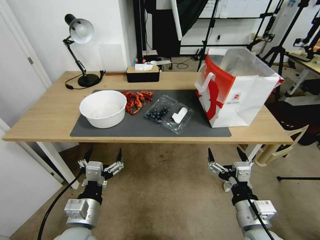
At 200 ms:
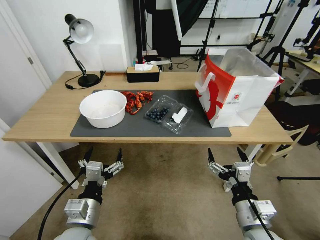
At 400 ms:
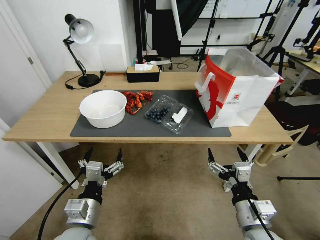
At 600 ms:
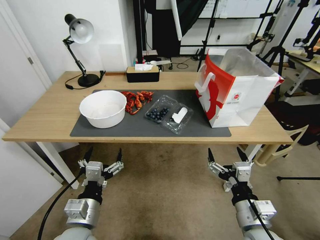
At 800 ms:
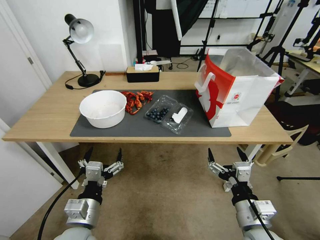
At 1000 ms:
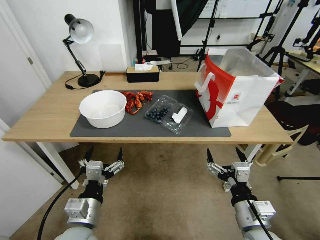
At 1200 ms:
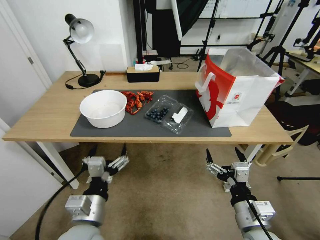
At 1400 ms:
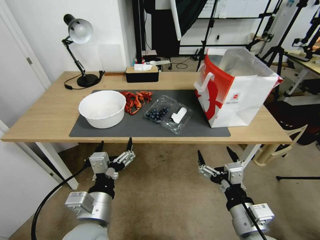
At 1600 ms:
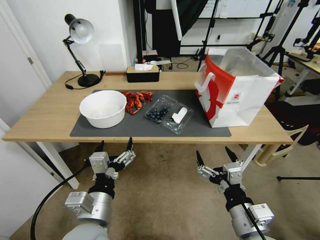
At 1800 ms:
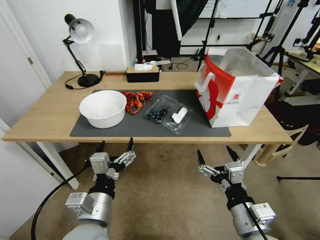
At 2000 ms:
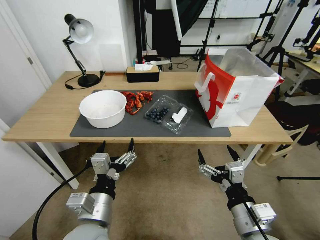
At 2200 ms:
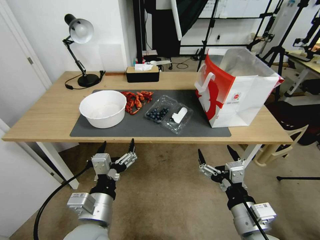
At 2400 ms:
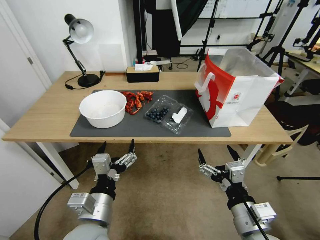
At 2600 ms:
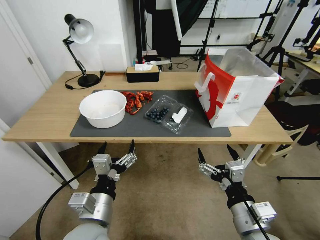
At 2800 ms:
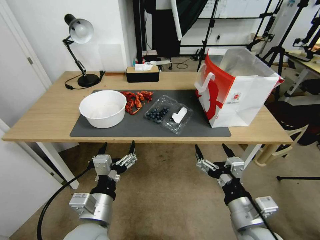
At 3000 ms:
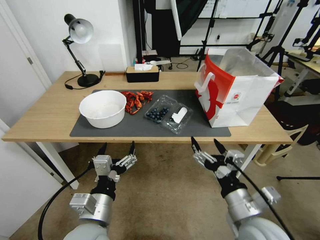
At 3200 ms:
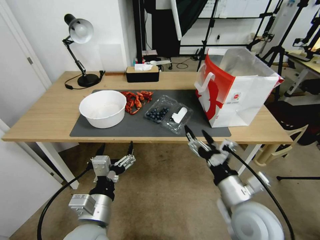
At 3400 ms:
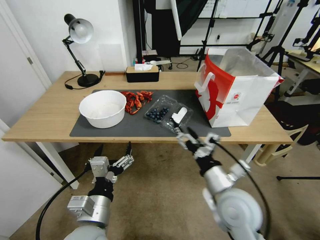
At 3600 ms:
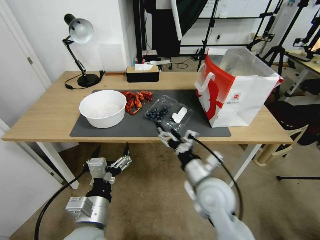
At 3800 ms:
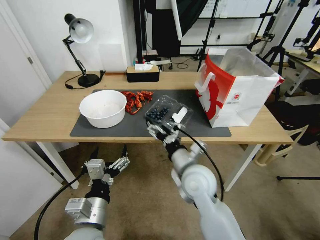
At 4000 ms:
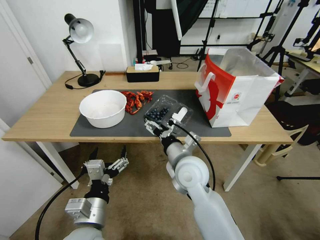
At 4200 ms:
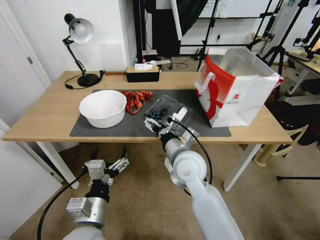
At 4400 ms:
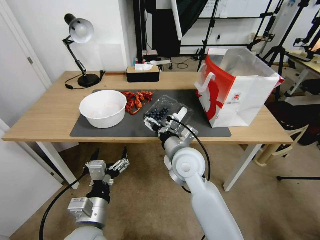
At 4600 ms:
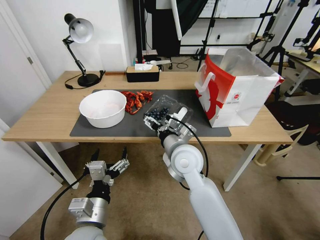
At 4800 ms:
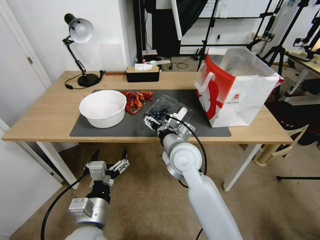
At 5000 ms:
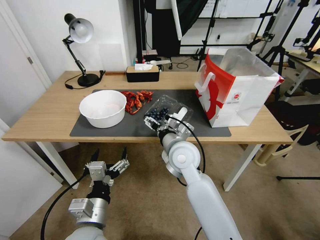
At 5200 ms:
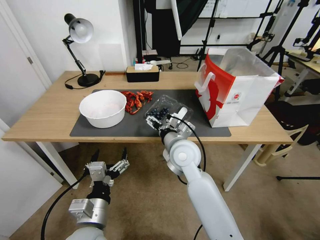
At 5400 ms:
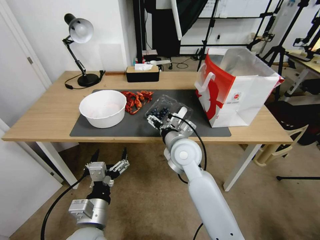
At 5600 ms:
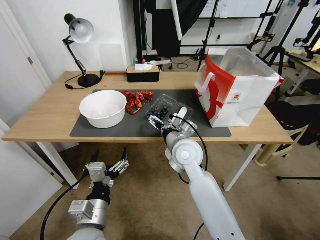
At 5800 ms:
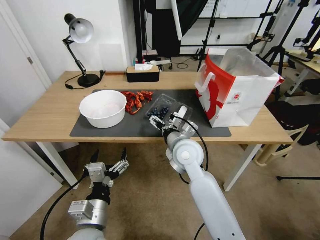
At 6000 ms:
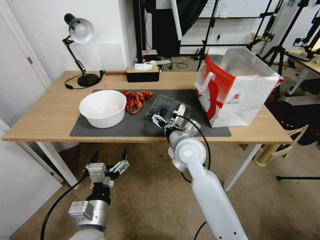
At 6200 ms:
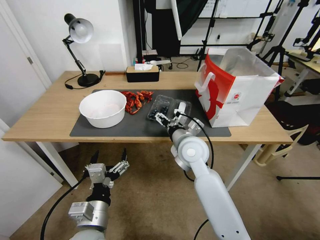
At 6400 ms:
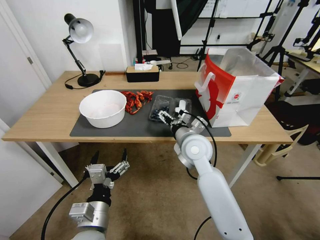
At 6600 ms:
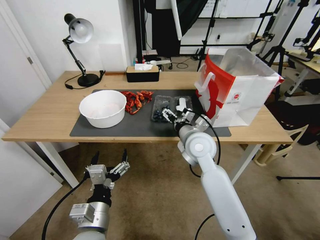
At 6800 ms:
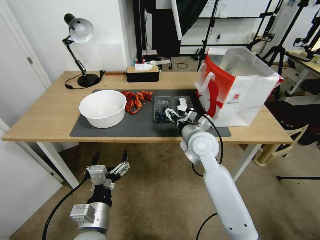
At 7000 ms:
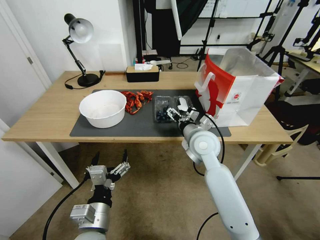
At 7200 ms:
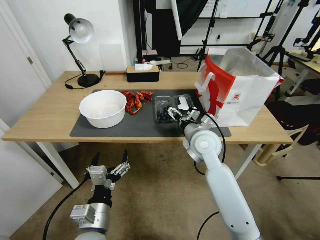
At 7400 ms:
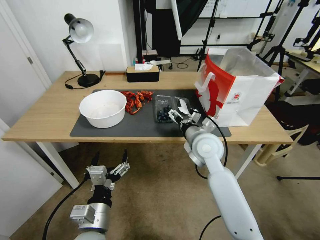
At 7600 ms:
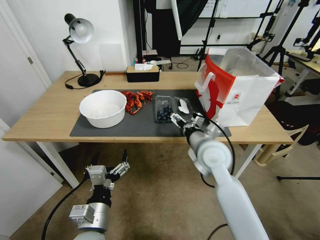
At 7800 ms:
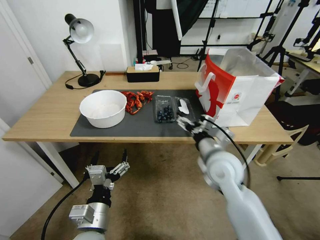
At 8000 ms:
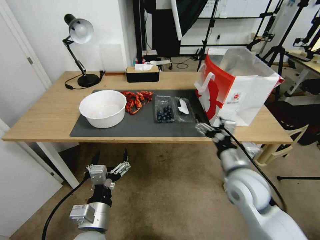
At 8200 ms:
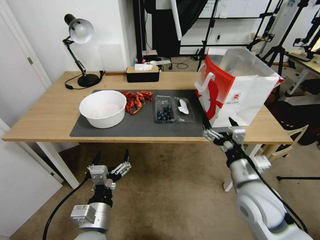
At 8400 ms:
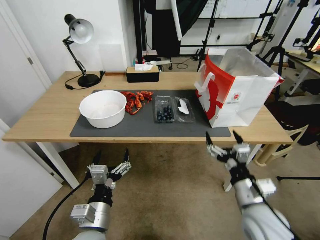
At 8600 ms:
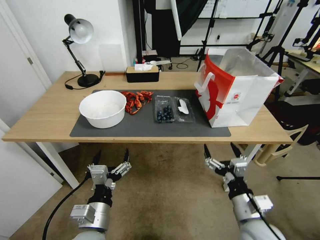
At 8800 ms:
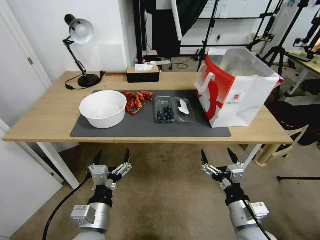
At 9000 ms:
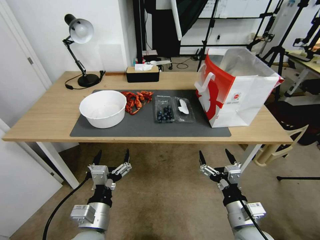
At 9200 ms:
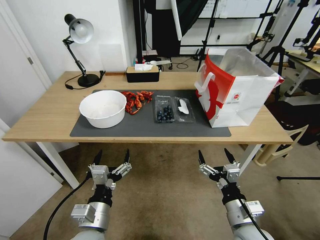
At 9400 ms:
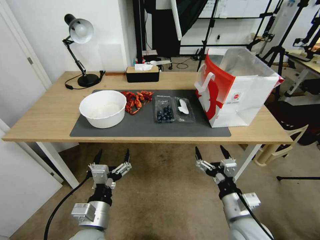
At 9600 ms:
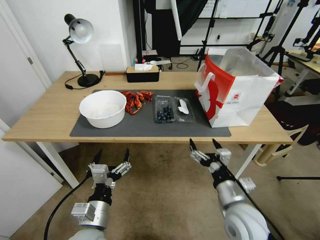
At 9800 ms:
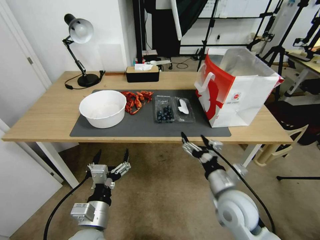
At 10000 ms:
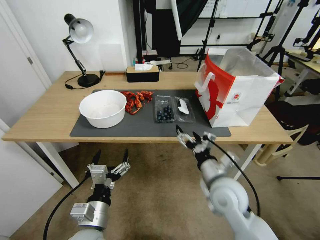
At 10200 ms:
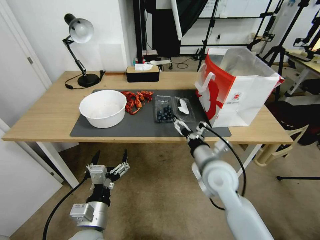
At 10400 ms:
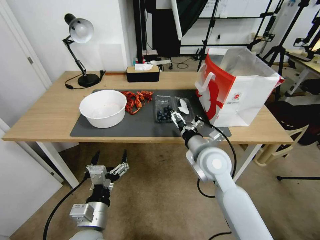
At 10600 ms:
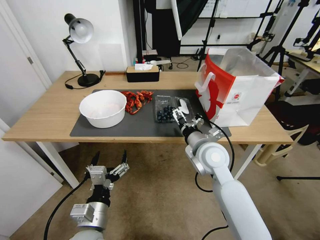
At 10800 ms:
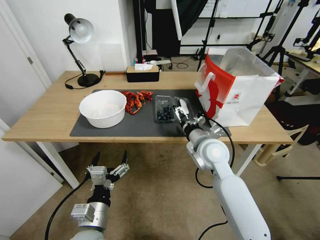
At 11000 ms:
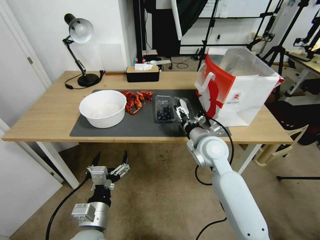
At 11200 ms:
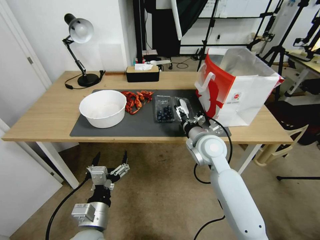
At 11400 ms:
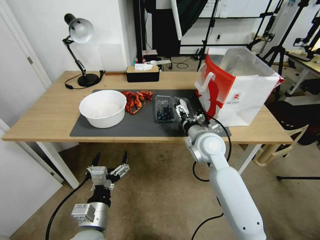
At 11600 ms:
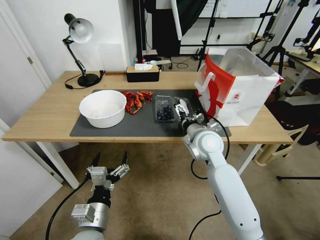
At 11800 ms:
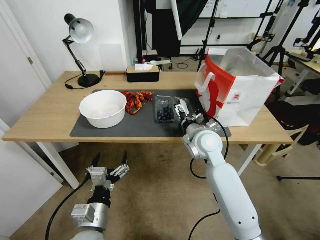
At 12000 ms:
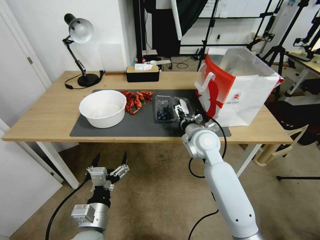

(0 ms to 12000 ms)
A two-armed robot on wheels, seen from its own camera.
Task of the whole recording: Close the takeout container lid, then place the container into the takeout bag.
3000 ms - 4400 ms: The right gripper moves forward and to the left, roughly 20 cm.
4400 ms - 6000 ms: The grippers move only a little.
6000 ms - 7600 ms: The right gripper shifts some 5 cm to the right.
7600 ms - 9000 ms: The right gripper goes approximately 25 cm backward, downward and to the right.
9000 ms - 10400 ms: The right gripper shifts approximately 20 cm forward, upward and to the left.
10400 ms - 12000 ms: The right gripper shifts roughly 5 cm forward.

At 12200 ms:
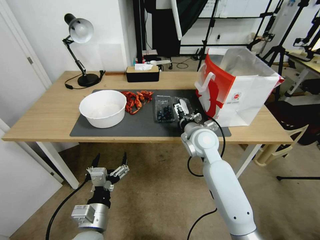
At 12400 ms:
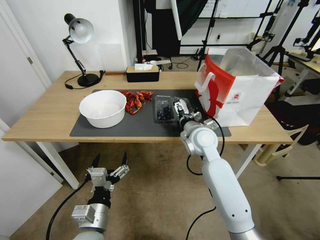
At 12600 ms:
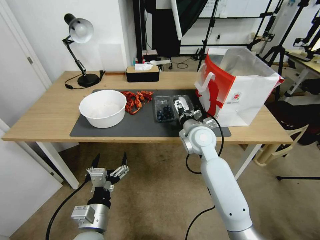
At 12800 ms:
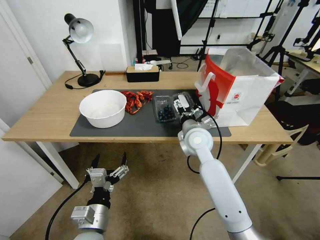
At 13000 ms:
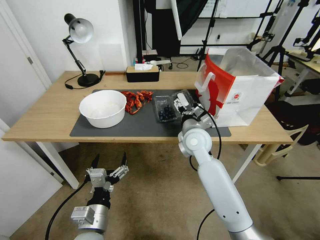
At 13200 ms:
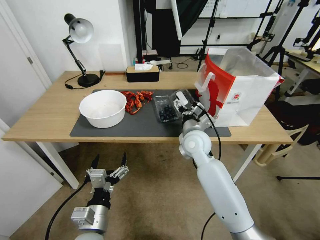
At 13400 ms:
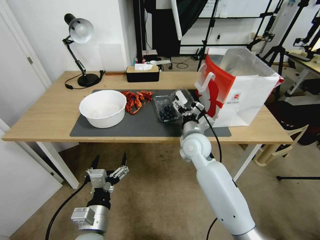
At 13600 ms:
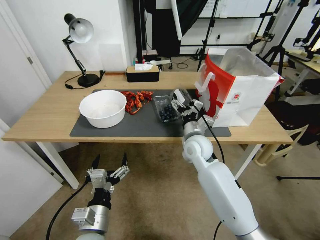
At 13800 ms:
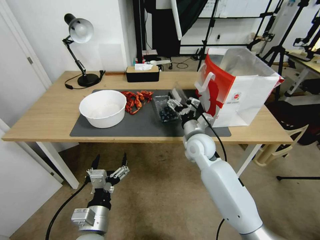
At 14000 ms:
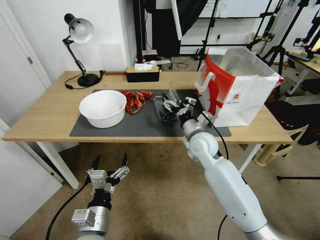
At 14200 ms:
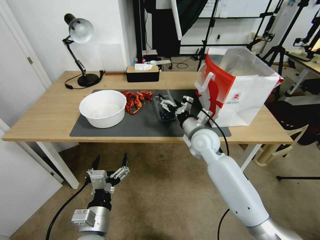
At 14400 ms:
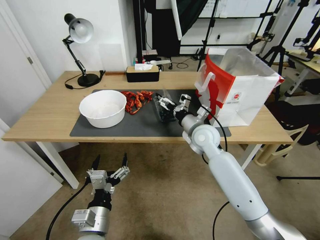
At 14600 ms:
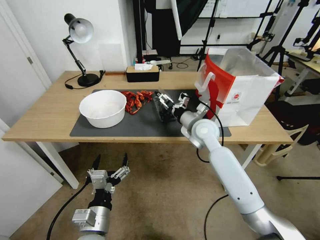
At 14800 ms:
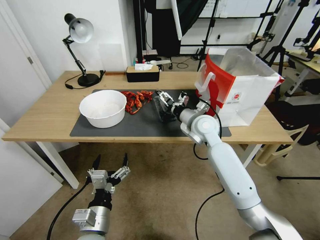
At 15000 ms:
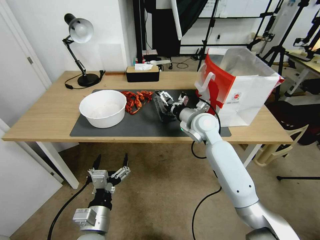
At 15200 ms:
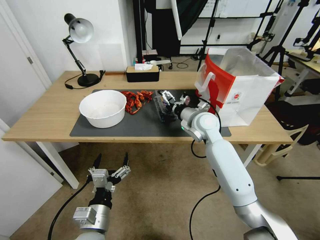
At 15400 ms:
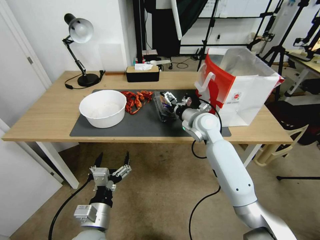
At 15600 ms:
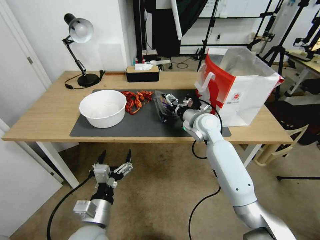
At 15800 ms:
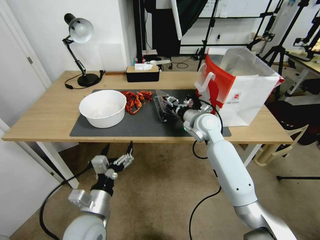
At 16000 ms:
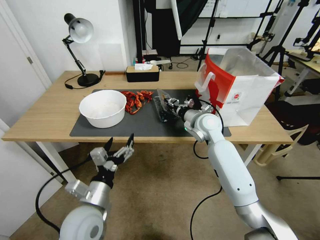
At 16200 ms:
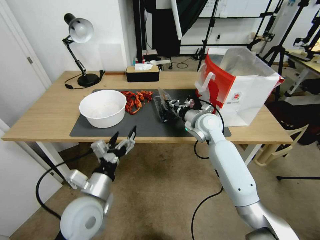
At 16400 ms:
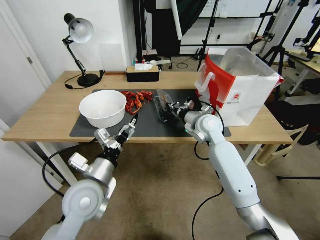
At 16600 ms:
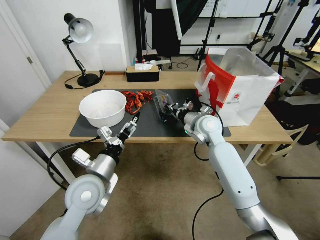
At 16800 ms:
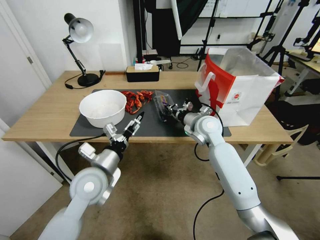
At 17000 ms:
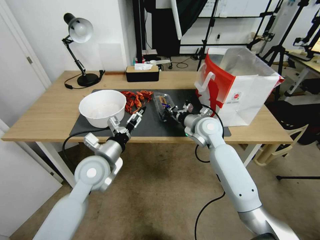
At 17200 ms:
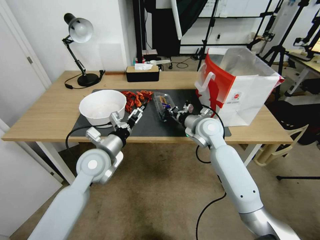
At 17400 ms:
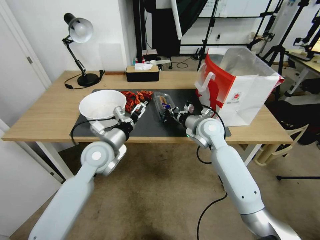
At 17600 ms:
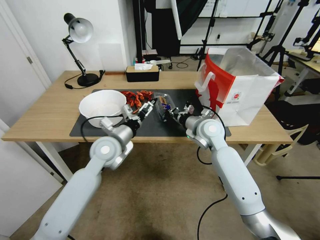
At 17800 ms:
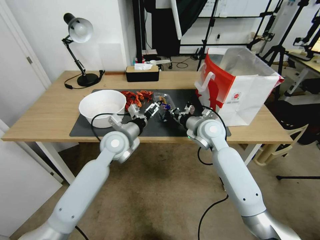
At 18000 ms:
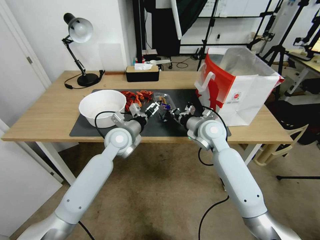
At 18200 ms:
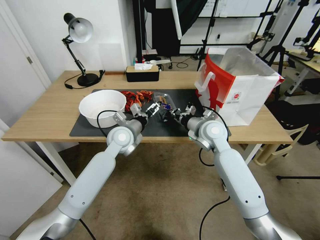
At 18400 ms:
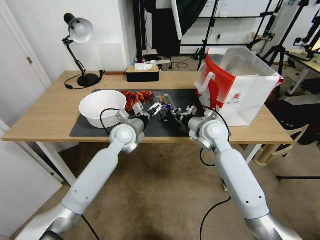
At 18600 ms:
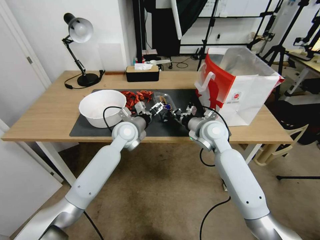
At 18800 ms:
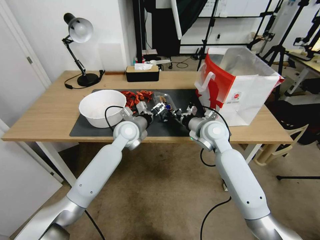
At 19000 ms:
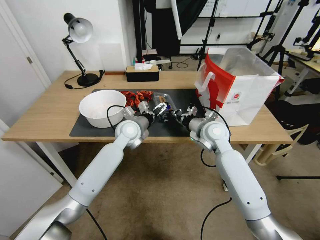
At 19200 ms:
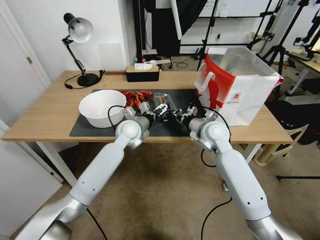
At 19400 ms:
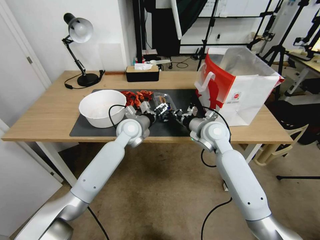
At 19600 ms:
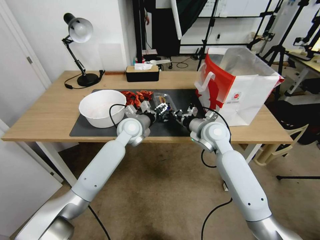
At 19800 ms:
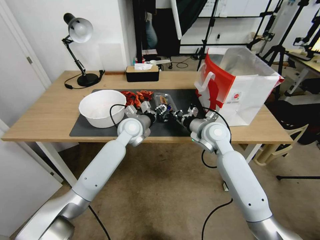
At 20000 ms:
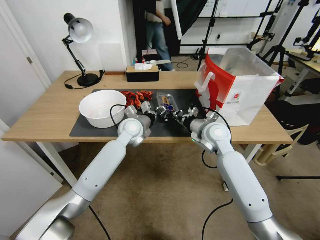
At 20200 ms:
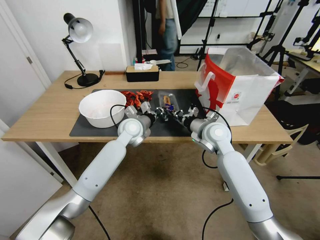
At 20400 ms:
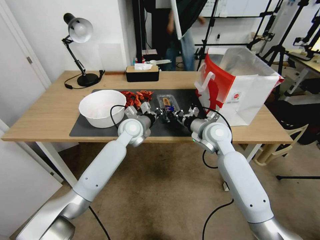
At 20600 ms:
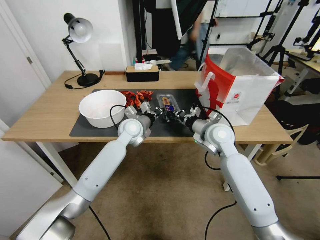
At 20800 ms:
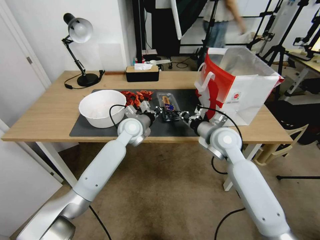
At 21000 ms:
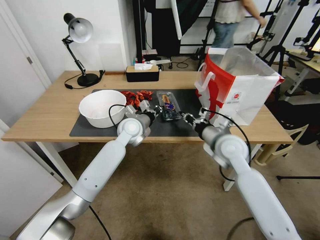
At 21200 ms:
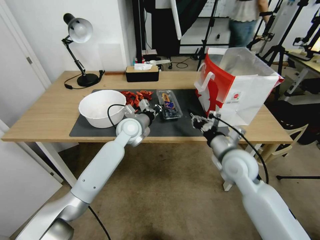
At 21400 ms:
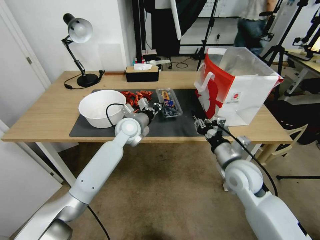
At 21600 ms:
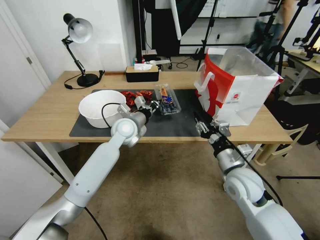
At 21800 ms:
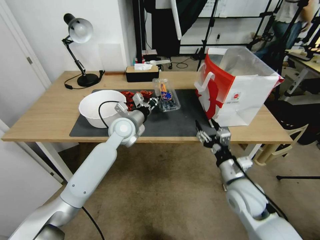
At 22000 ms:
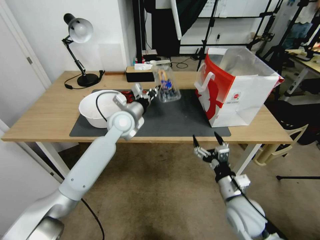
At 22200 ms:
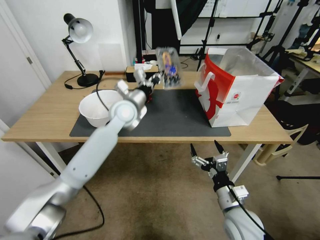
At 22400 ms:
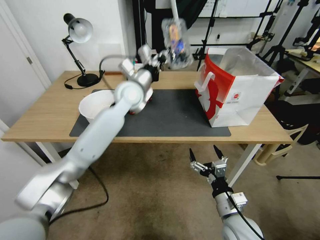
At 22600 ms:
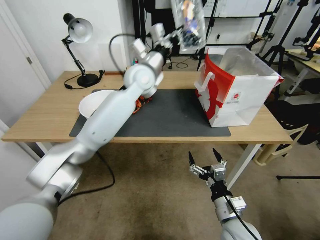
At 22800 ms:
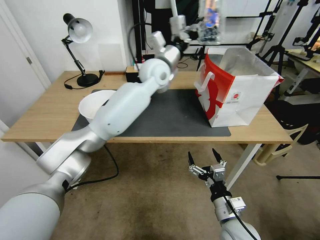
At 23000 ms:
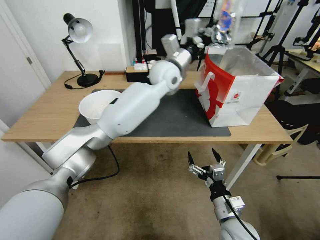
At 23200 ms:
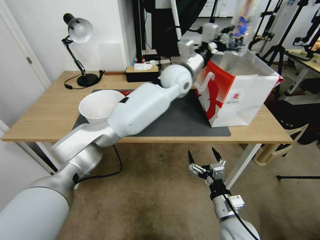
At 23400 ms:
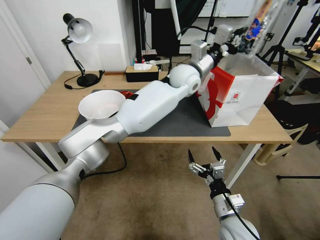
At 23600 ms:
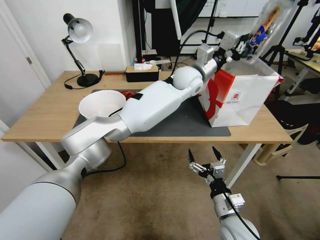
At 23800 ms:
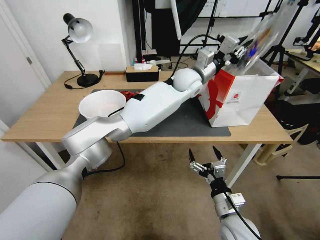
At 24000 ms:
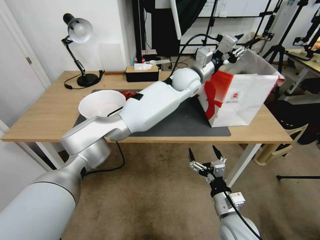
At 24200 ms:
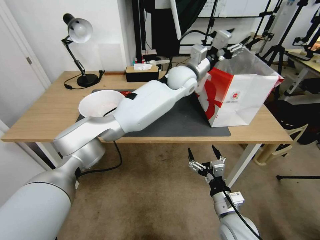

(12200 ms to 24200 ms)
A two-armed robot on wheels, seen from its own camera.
Task of the whole recording: Close the takeout container lid, then place the container into the takeout bag.
13800 ms - 15200 ms: The right gripper heads forward and upward, covering some 10 cm.
15200 ms - 16600 ms: The right gripper closes up. The left gripper heads forward and upward, covering roughly 15 cm.
16600 ms - 18200 ms: The left gripper goes roughly 20 cm forward.
18200 ms - 19800 ms: The left gripper closes.
19800 ms - 21200 ms: The left gripper closes up, while the right gripper moves backward, some 10 cm.
21200 ms - 22600 ms: The left gripper goes approximately 20 cm upward. Meanwhile the right gripper travels backward and downward by some 20 cm, and opens.
22600 ms - 24200 ms: The left gripper travels to the right by about 15 cm, and opens its fingers.
